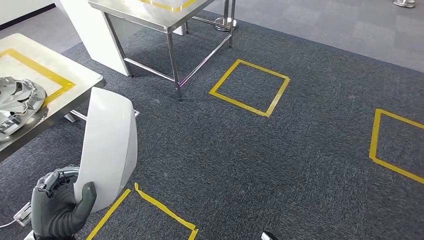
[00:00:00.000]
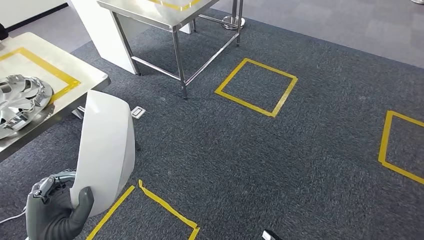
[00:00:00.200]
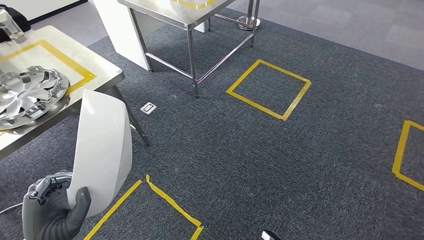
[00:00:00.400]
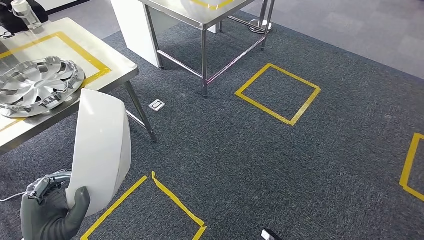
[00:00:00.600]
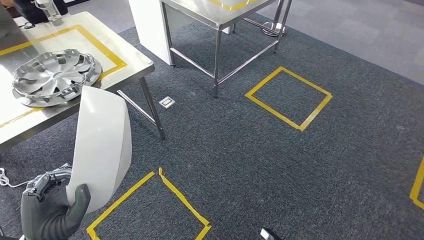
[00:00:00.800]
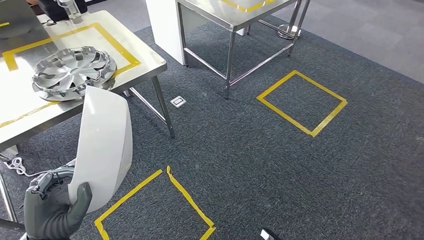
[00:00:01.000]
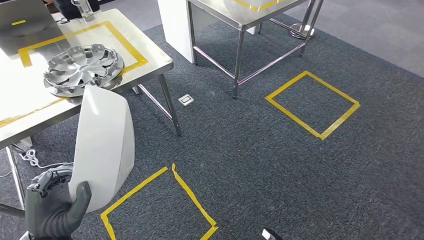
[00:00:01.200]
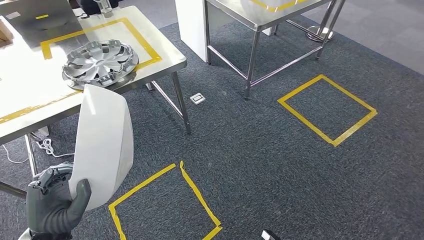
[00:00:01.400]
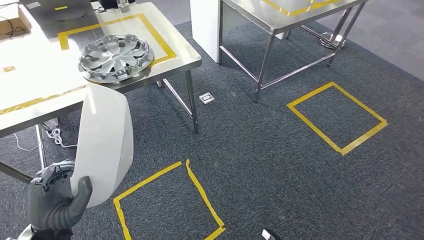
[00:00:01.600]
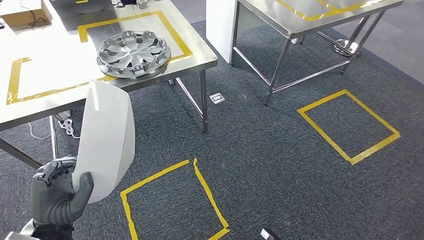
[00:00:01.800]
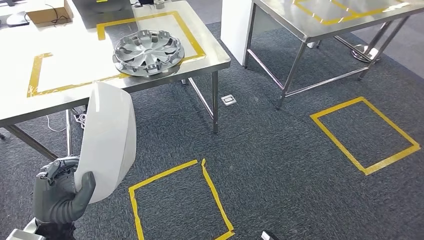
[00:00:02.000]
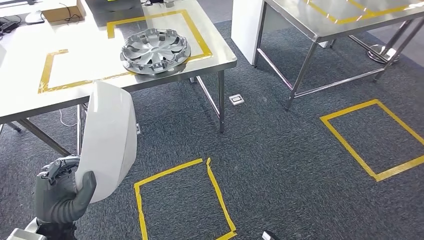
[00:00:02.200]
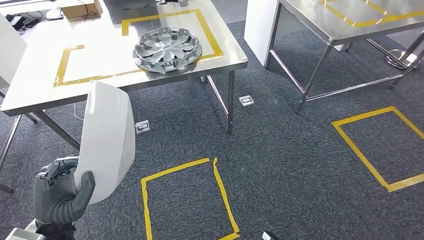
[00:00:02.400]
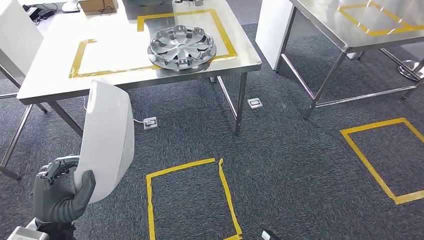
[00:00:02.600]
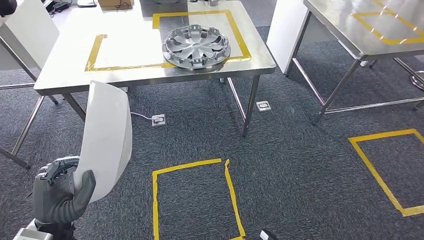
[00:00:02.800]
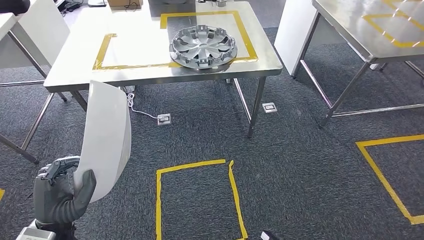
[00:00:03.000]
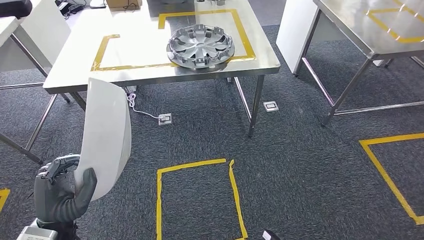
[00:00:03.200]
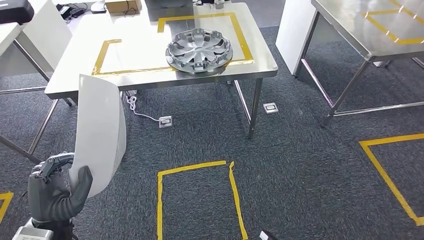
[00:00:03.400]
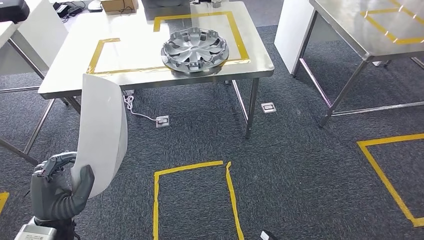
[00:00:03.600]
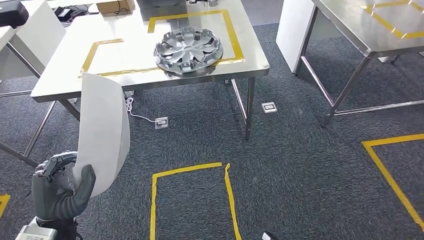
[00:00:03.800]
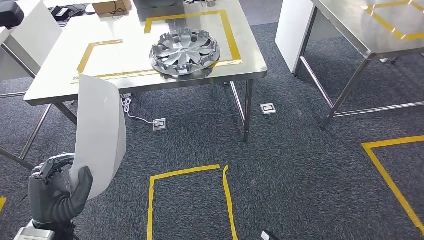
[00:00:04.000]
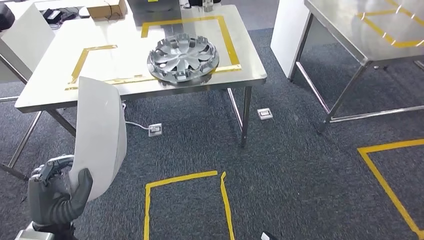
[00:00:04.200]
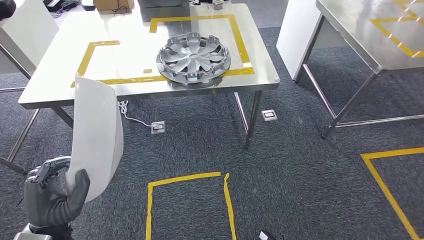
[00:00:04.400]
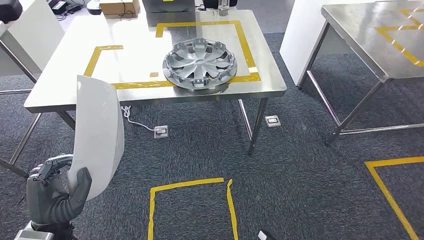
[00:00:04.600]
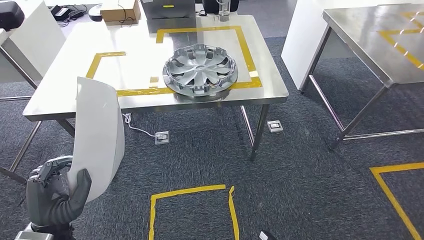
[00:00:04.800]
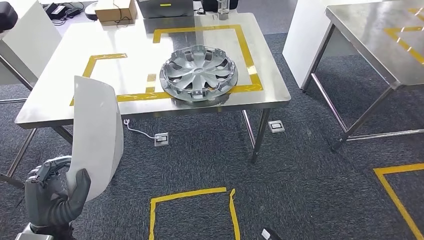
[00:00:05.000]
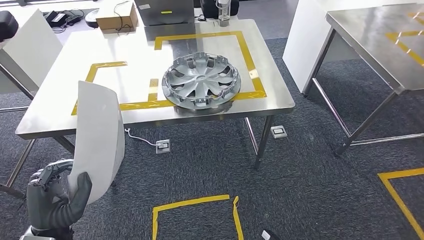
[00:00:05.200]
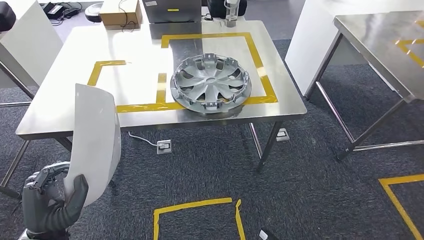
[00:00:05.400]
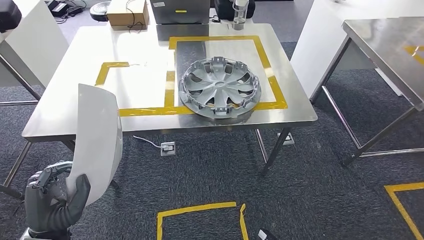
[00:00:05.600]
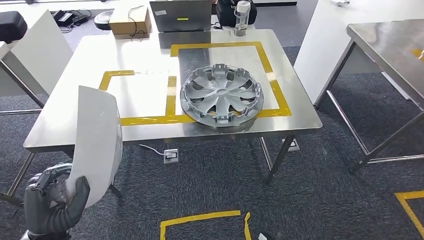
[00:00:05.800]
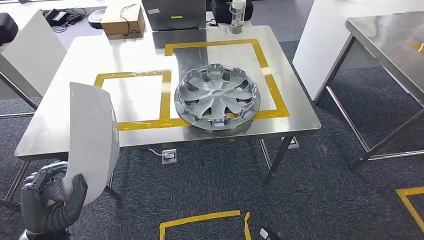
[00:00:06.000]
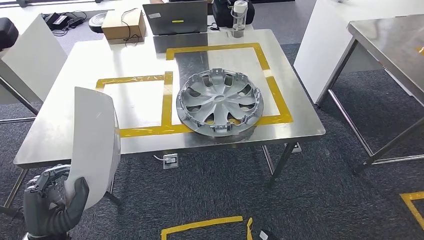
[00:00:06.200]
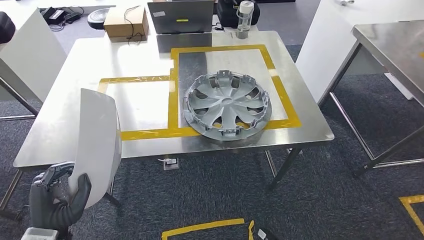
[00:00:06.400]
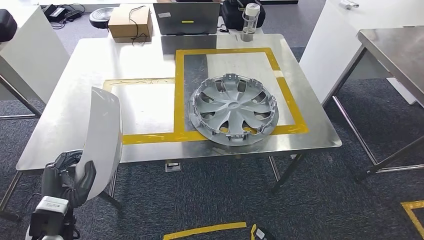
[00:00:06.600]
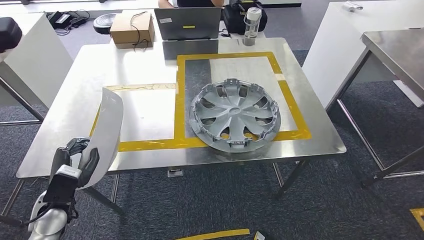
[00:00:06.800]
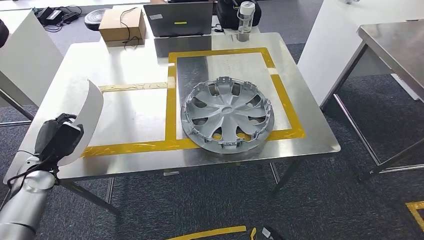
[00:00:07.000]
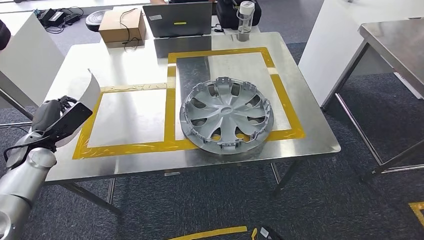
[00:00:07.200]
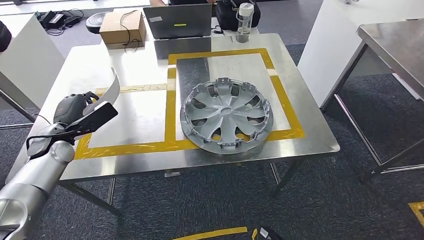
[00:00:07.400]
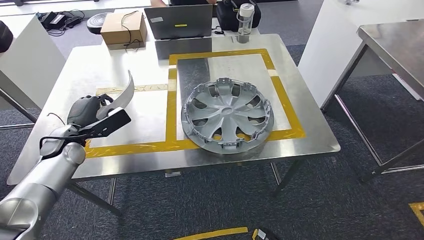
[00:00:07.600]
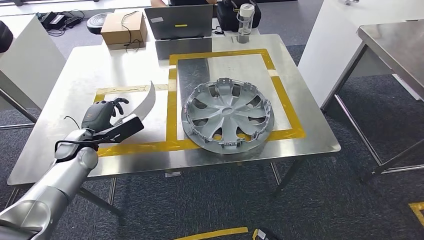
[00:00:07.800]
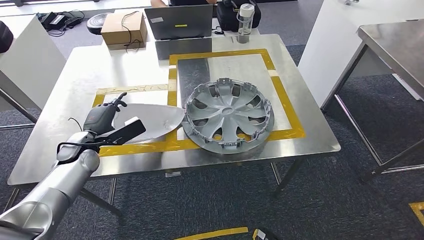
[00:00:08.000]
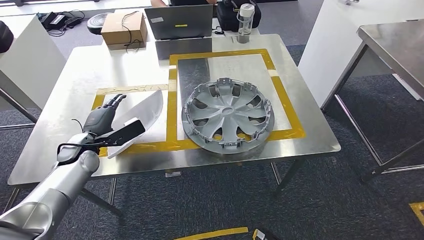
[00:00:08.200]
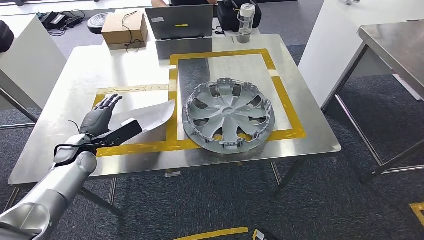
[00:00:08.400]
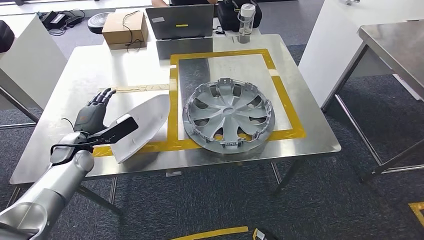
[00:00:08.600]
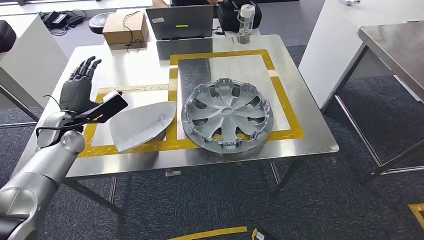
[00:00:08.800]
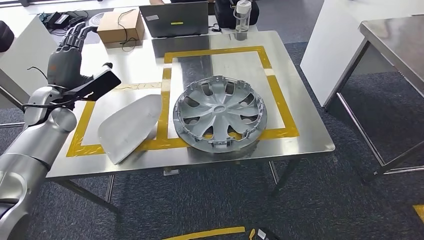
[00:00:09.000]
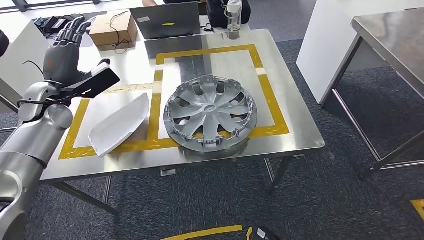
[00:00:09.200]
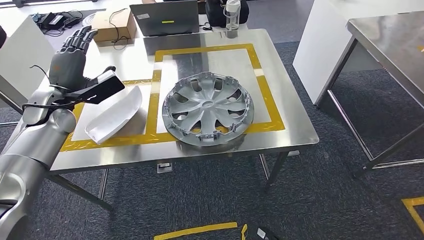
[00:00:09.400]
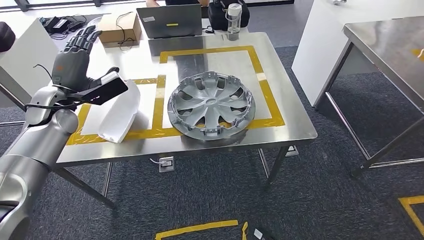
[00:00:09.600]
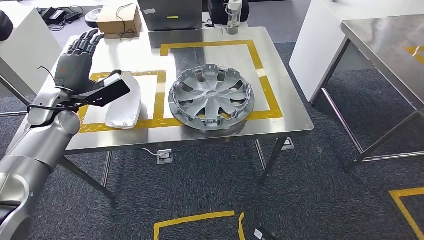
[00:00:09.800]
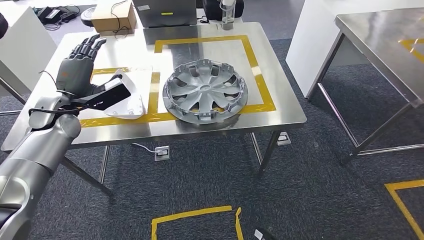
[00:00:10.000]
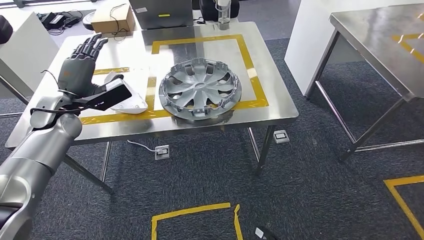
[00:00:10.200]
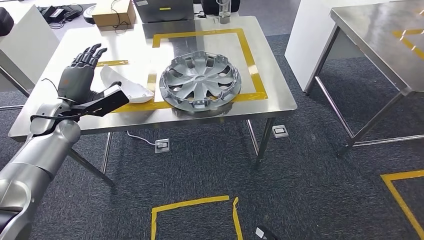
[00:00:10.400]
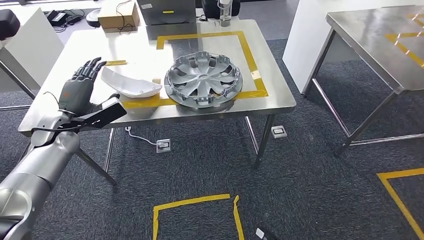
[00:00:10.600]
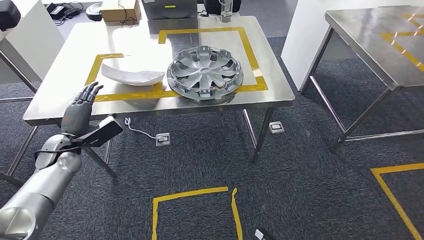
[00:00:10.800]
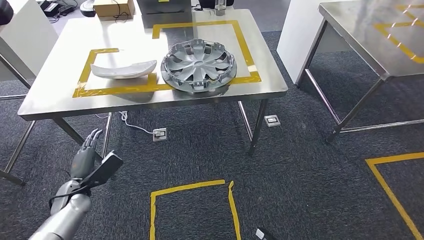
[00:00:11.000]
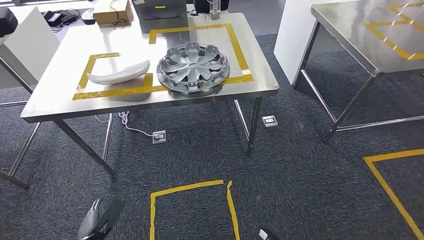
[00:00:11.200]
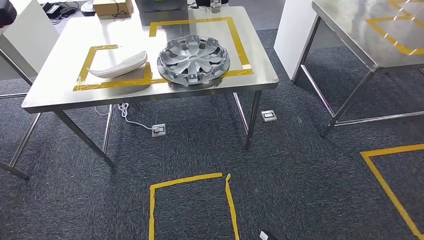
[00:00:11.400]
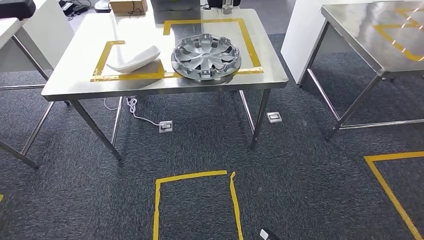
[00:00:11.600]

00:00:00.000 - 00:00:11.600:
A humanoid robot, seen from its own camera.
Step, 00:00:00.000 - 00:00:04.000: Move the small parts to the workbench.
Step, 00:00:05.000 - 00:00:09.600: Insert the small parts into the corresponding holes on the workbench.
Step, 00:00:10.200 - 00:00:11.600: Move to the initial position of the workbench.
